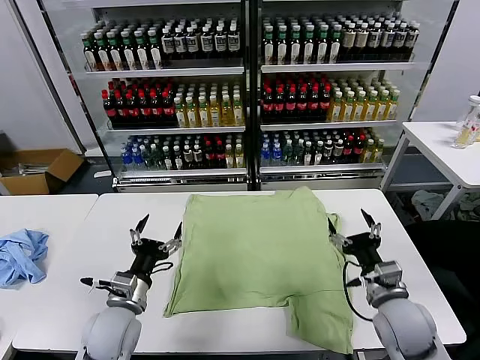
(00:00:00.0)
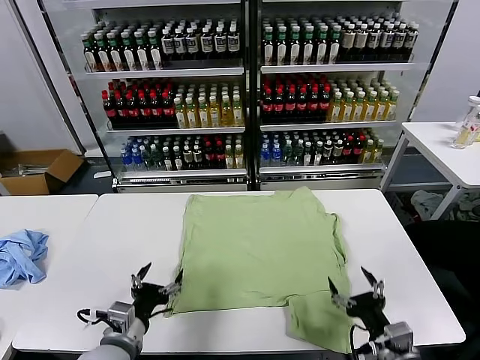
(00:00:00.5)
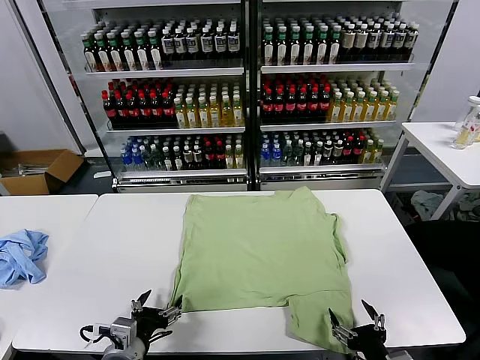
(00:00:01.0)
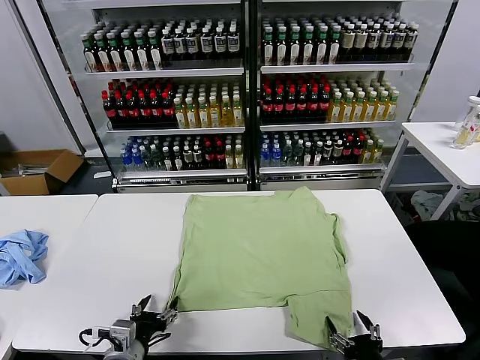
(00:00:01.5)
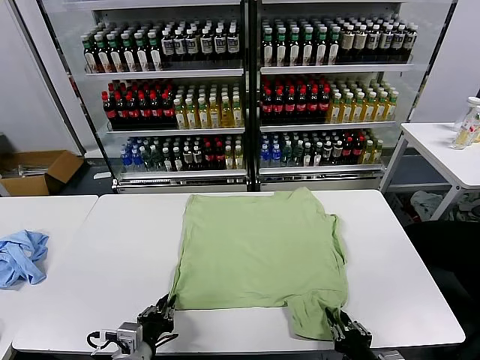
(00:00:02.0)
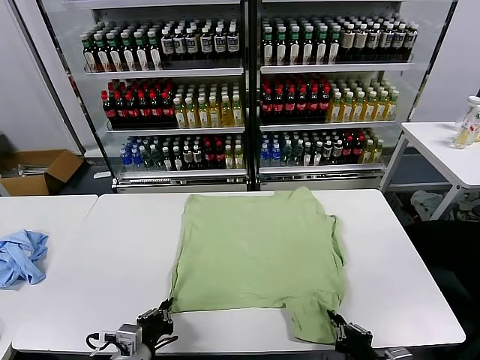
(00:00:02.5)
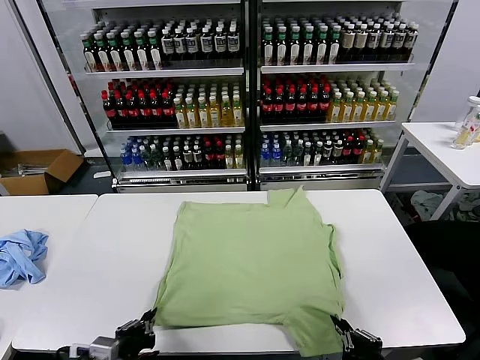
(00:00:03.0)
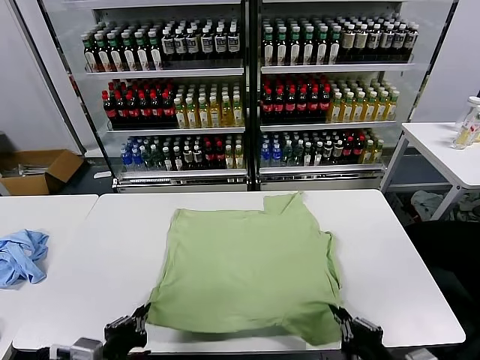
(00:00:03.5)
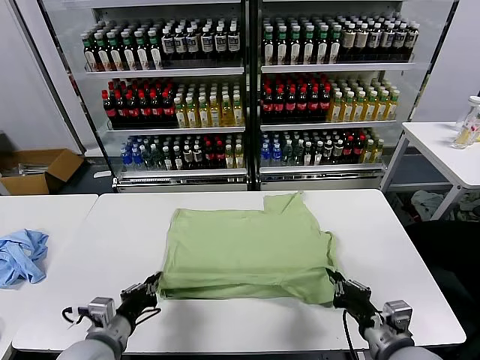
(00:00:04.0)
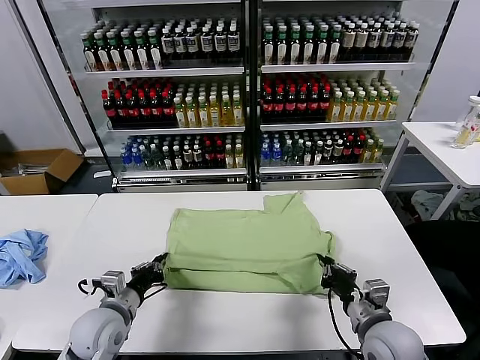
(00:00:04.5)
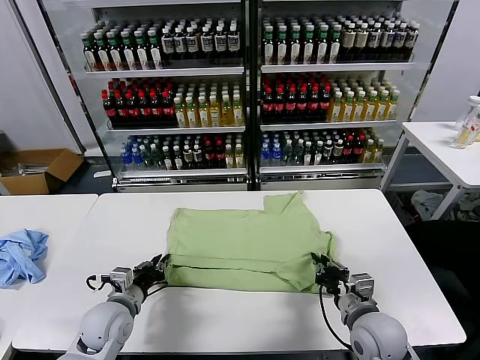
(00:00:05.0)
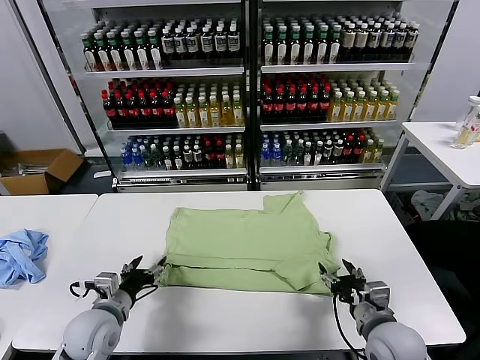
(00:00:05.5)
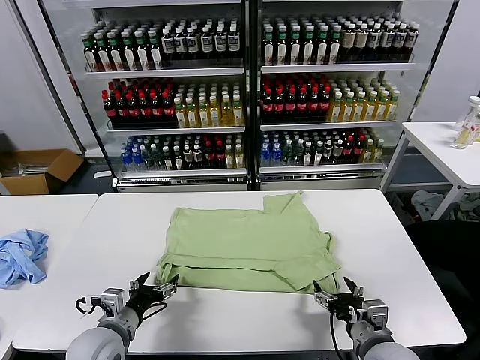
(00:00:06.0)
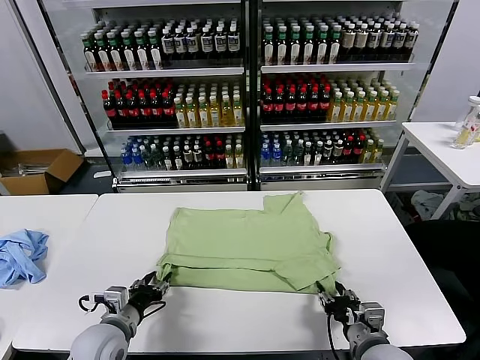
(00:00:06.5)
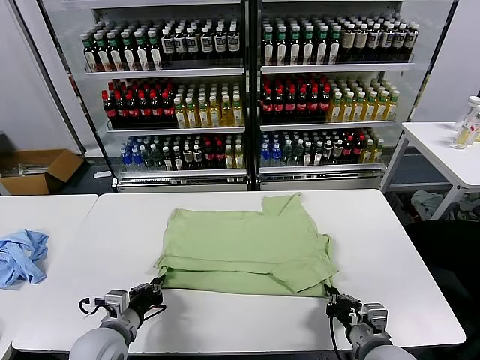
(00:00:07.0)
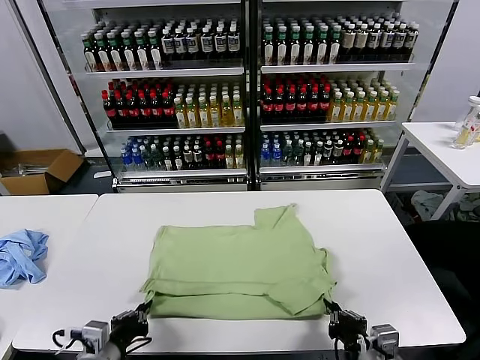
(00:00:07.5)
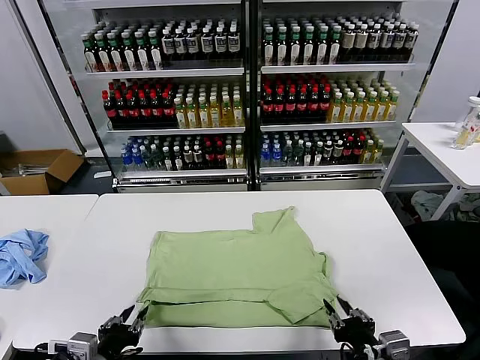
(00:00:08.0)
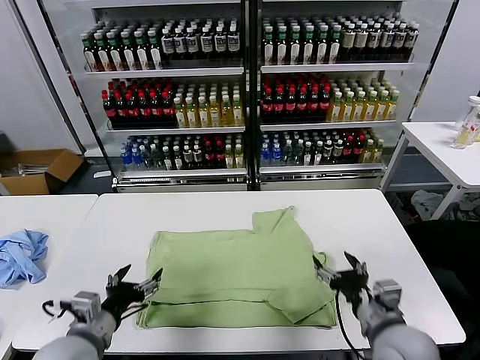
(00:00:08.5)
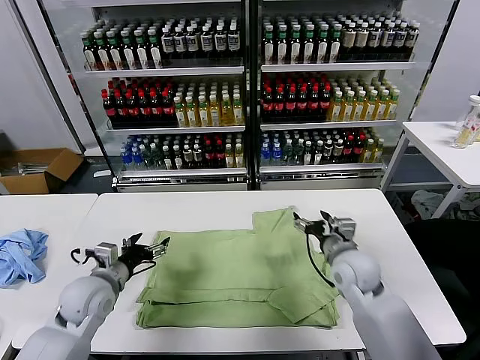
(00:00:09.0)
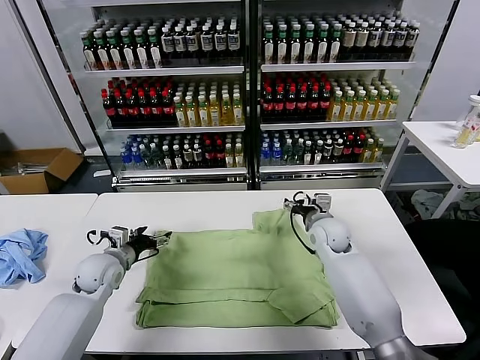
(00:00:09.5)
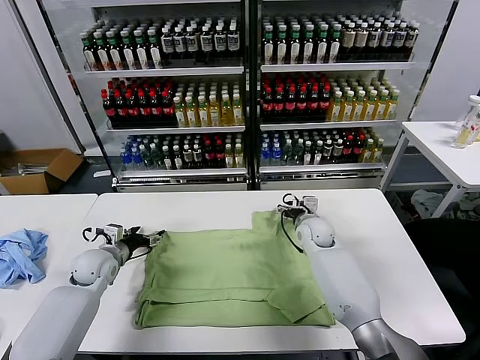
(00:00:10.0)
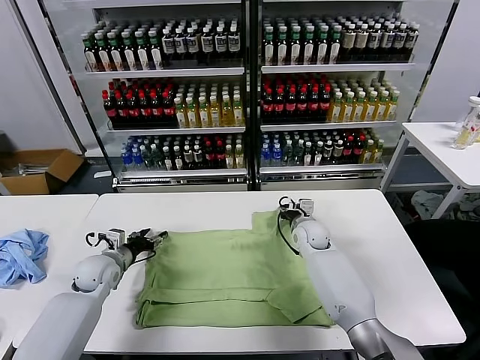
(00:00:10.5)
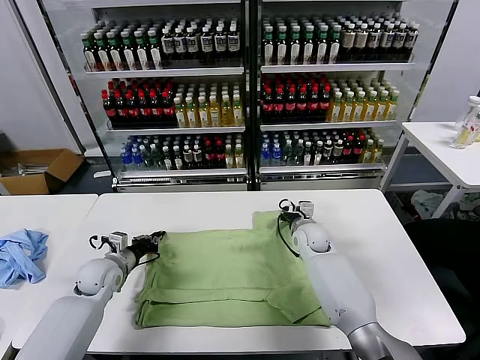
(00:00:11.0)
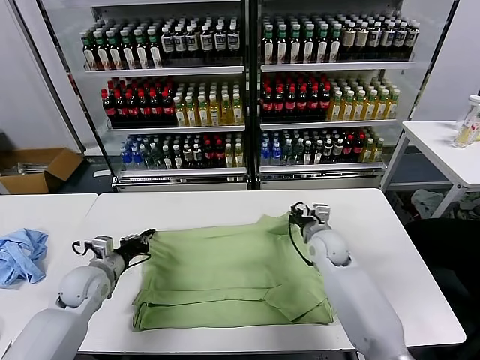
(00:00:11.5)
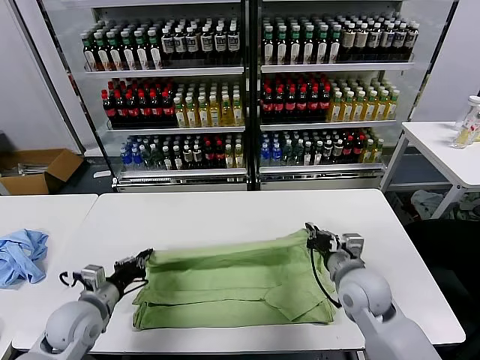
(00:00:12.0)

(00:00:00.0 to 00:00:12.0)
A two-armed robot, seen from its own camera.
Task of the whole recording: fold and organize the clothes.
Step, 00:00:00.0 - 00:00:03.0: use both grippers simultaneously to clamp the lower edge of the clothing fabric.
Step, 00:00:03.5 - 00:00:05.0: use both grippers to drag the lower edge of the fabric forward and fold it over the upper edge.
Step, 00:00:05.5 - 00:00:08.0: Drag the clothes downward with both gripper.
Step, 00:00:08.5 - 00:00:11.0: use both grippers simultaneously to clamp the upper edge of the clothing fabric.
00:00:02.0 - 00:00:04.0: The left gripper moves to the left, about 5 cm; the right gripper goes roughly 10 cm forward and upward.
00:00:04.0 - 00:00:06.0: The right gripper opens its fingers. The left gripper goes forward and returns, approximately 10 cm each way, and opens.
00:00:06.0 - 00:00:08.0: The left gripper travels backward and upward by roughly 10 cm, and closes. The right gripper shifts some 10 cm upward and backward, and closes.
00:00:08.0 - 00:00:10.0: The grippers both shift forward by roughly 35 cm. The right gripper opens; the left gripper opens up.
00:00:10.0 - 00:00:12.0: The two grippers go about 20 cm backward. The right gripper closes up, while the left gripper closes its fingers.

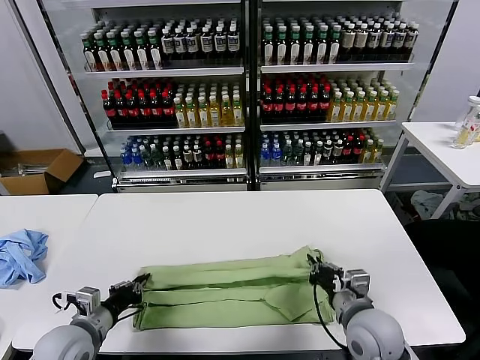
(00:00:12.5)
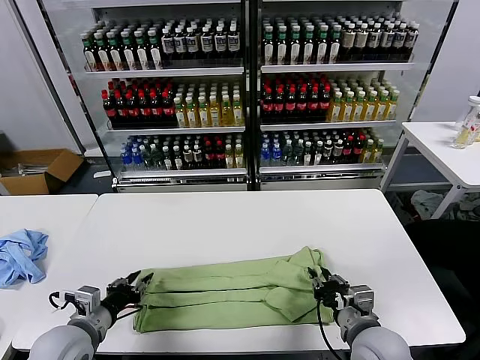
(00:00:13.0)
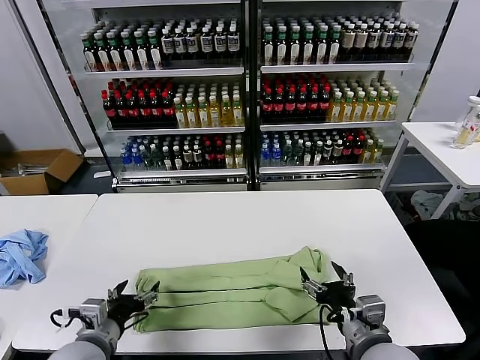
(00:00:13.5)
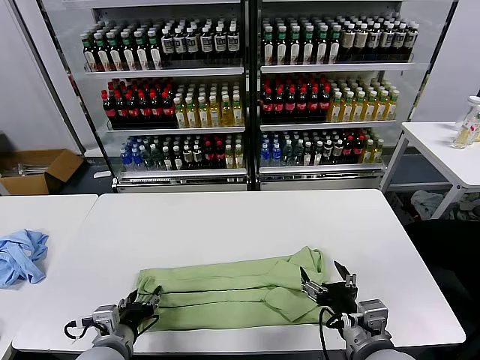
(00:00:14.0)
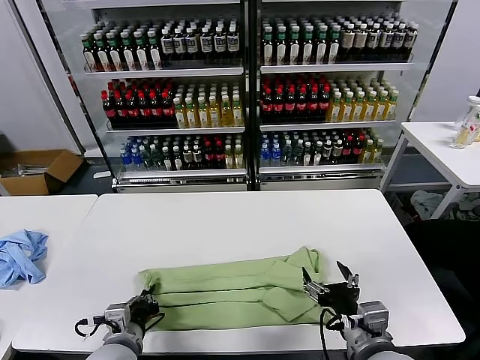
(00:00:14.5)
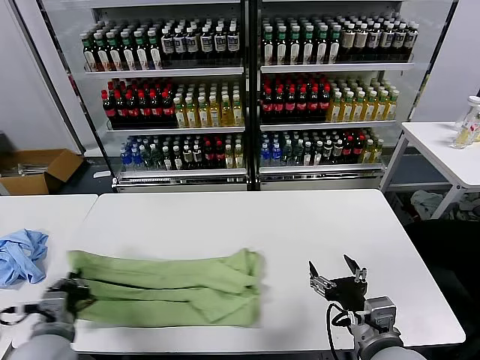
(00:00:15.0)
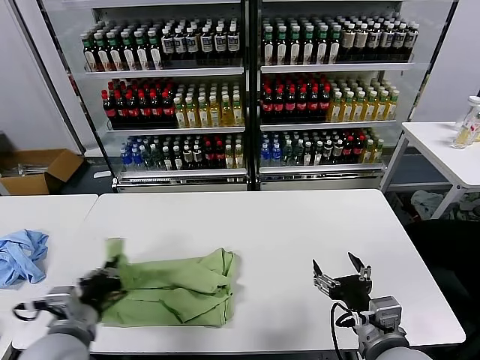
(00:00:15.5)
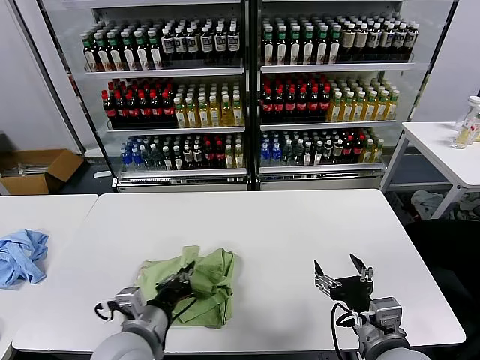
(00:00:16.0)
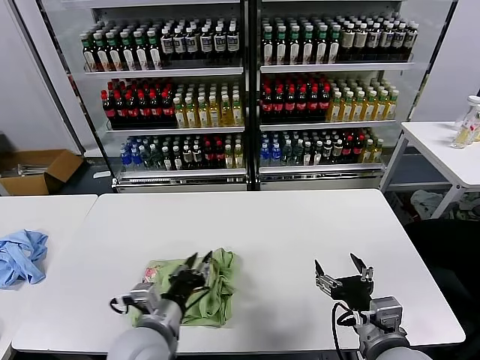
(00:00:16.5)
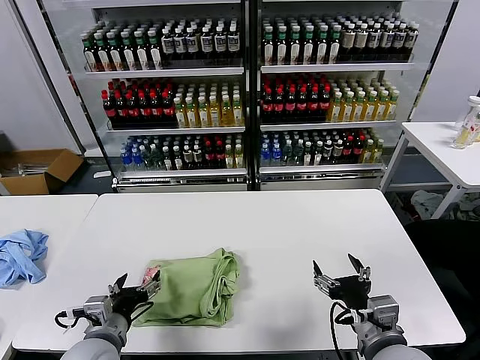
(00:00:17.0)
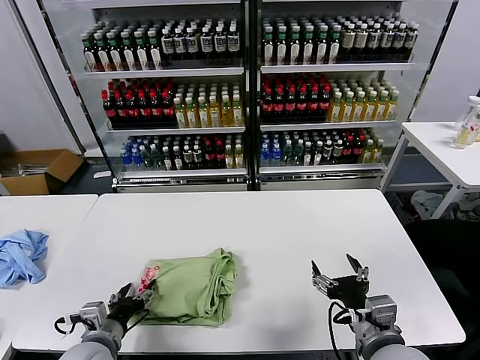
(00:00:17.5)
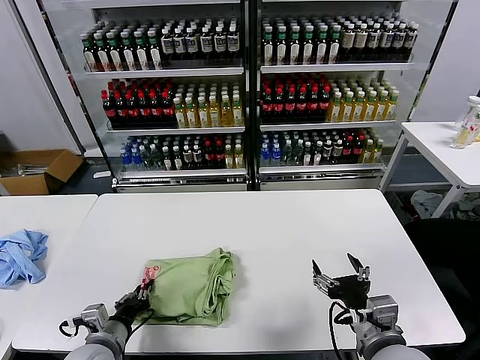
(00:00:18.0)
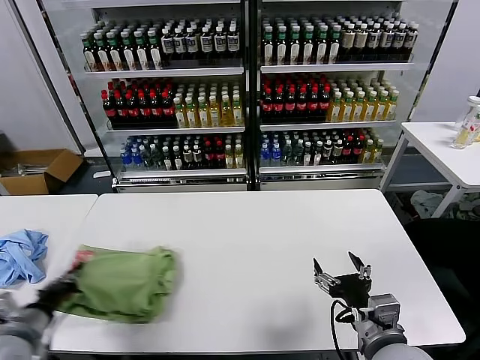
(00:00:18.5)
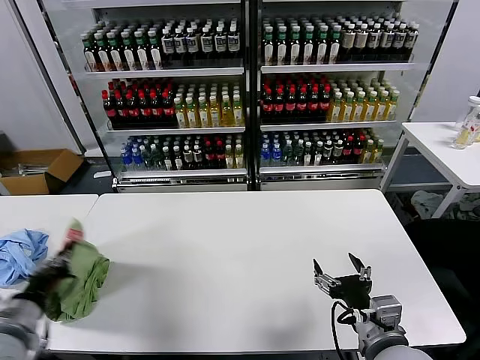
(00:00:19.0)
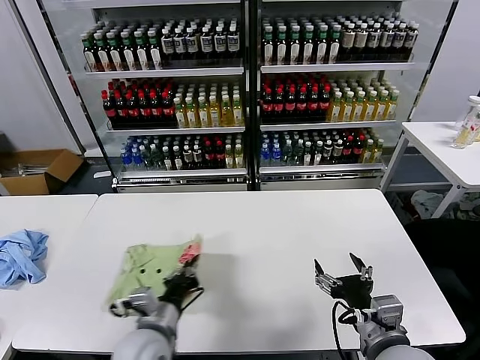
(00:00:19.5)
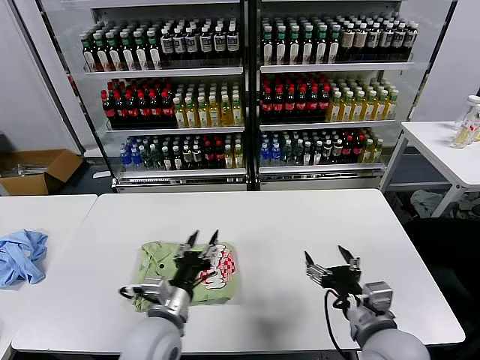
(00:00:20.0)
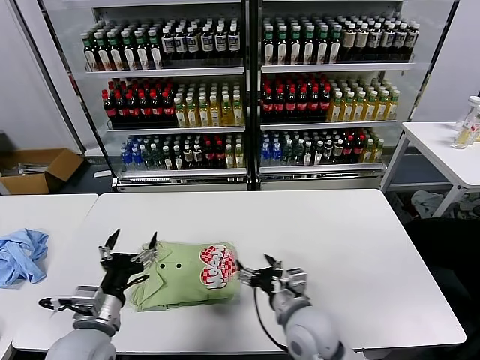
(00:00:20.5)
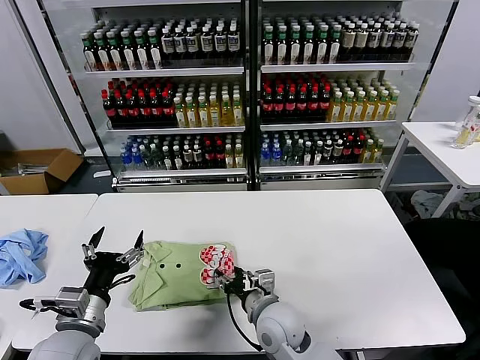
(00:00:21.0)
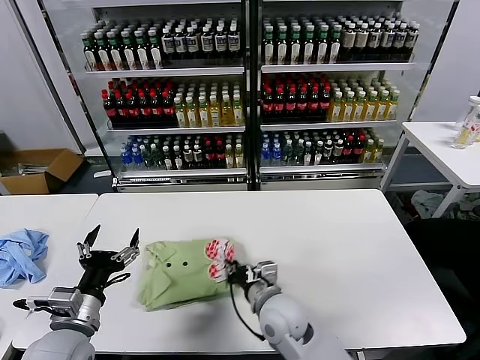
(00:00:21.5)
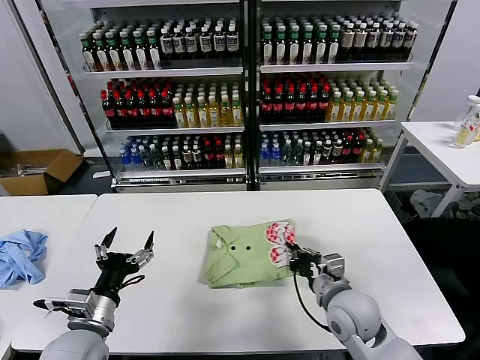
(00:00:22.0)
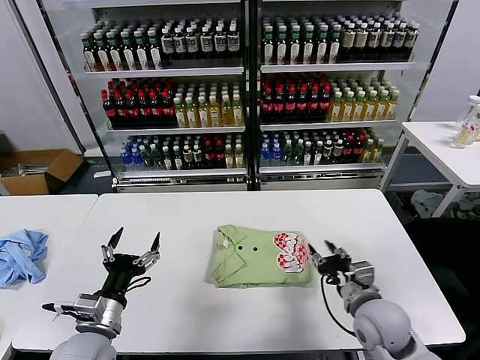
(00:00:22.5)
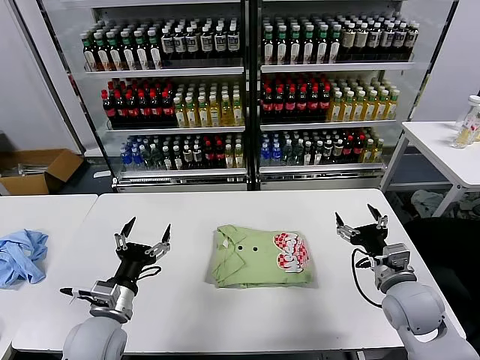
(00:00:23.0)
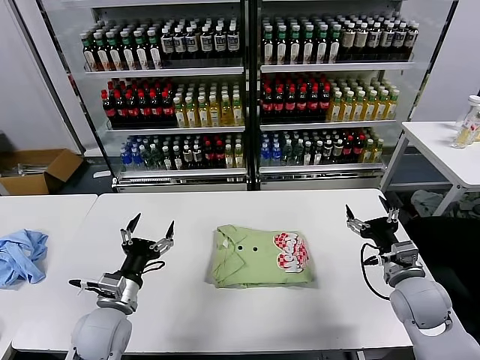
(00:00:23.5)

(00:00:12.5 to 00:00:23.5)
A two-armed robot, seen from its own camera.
Task of the whole recording: fold and organize the clothes.
Step, 00:00:13.5 - 00:00:14.0: use the left gripper to clamp the left edge of the fabric.
Step, 00:00:15.0 - 00:00:16.5: use the left gripper to drag the left edge of the fabric to the left and folds it over the right edge.
Step, 00:00:17.0 - 00:00:19.5: Flip the folded clothes over with left gripper.
Step, 00:00:20.0 - 00:00:22.0: Drag the clothes to the center of the table.
00:00:12.5 - 00:00:14.5: The left gripper moves to the right, some 10 cm, and opens, then closes again. Meanwhile the right gripper shifts roughly 10 cm backward, and opens up.
00:00:14.5 - 00:00:16.0: The left gripper goes about 5 cm upward, and goes to the left and returns, roughly 10 cm each way.
00:00:16.0 - 00:00:18.0: The left gripper travels to the left and downward by roughly 15 cm, and opens, then closes once more.
00:00:18.0 - 00:00:20.0: The left gripper is displaced to the right and upward by approximately 15 cm.
00:00:20.0 - 00:00:21.5: The left gripper moves to the left, approximately 15 cm, and opens up. Meanwhile the right gripper goes some 20 cm to the left, forward and downward, and closes up.
00:00:21.5 - 00:00:23.5: The left gripper shifts some 5 cm forward, while the right gripper moves to the right, about 25 cm, and opens up.
